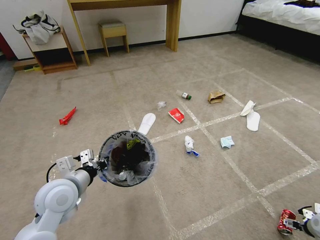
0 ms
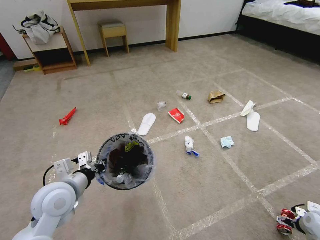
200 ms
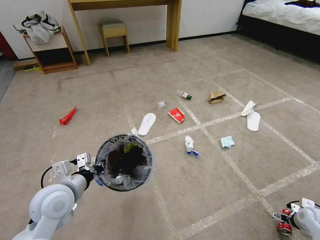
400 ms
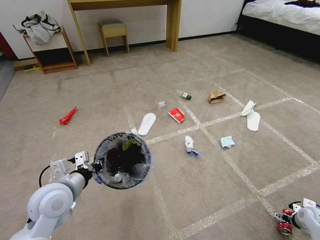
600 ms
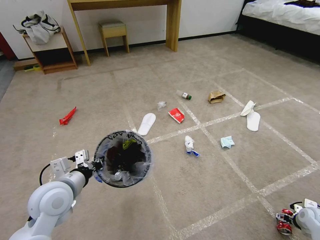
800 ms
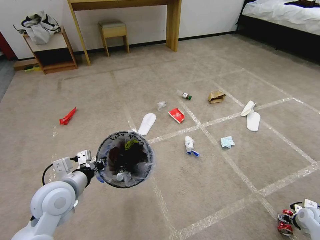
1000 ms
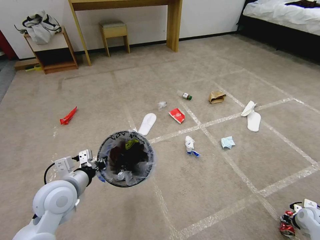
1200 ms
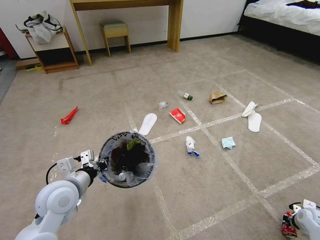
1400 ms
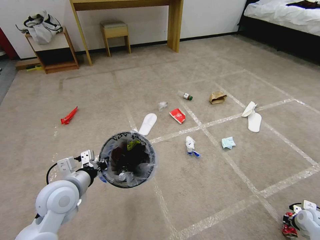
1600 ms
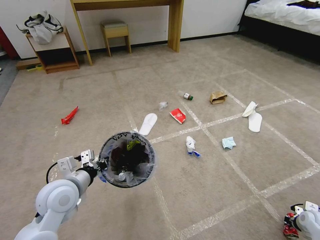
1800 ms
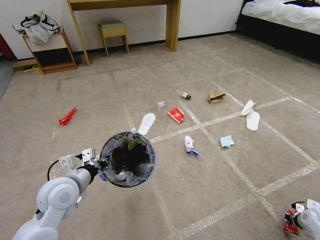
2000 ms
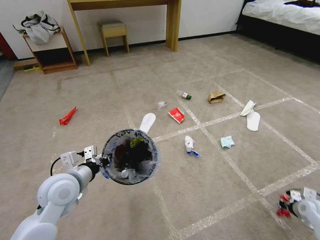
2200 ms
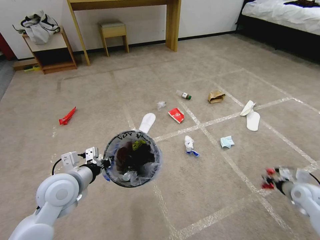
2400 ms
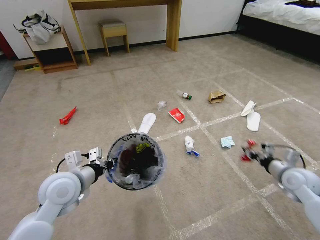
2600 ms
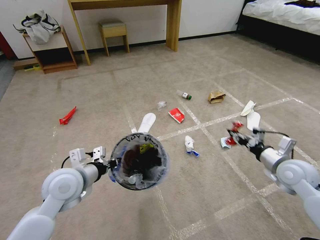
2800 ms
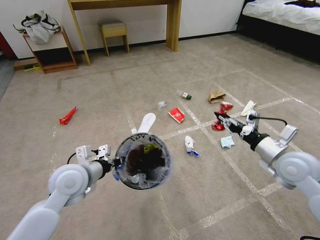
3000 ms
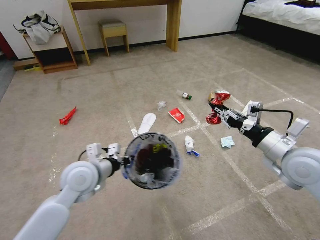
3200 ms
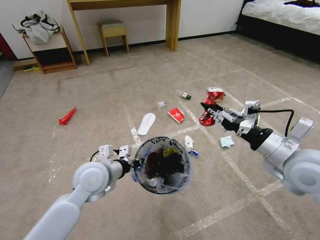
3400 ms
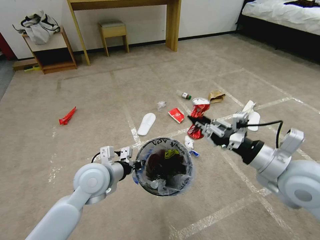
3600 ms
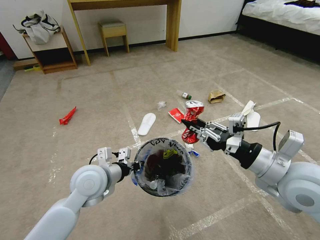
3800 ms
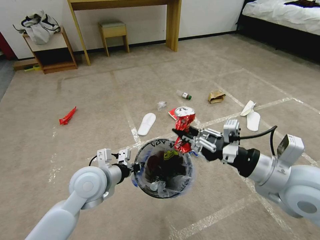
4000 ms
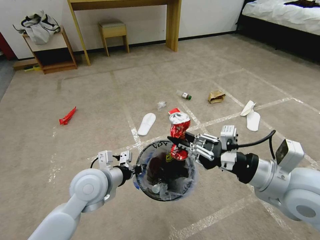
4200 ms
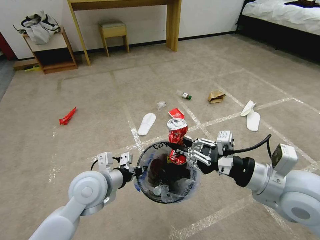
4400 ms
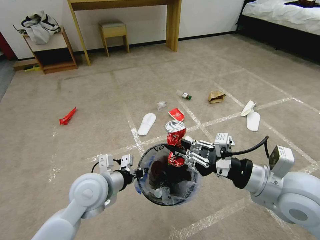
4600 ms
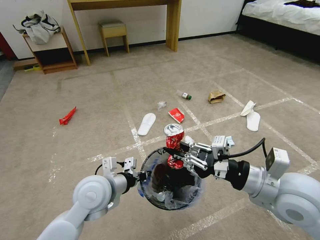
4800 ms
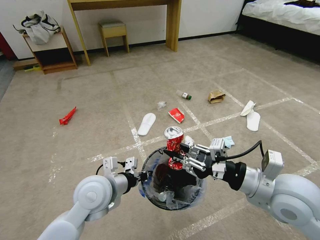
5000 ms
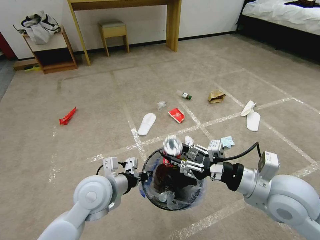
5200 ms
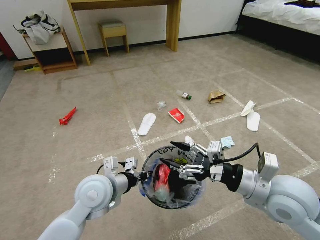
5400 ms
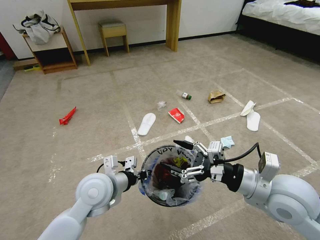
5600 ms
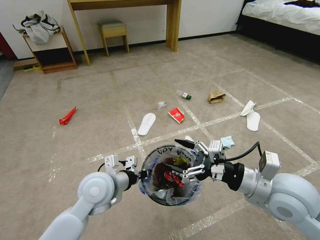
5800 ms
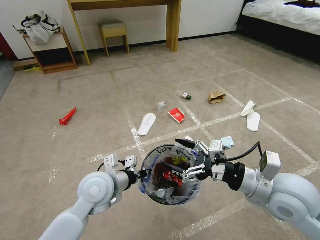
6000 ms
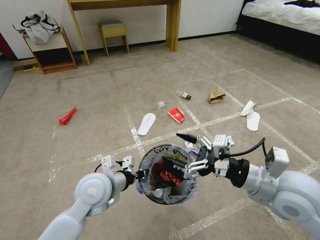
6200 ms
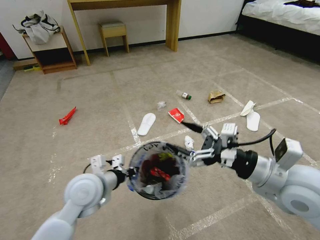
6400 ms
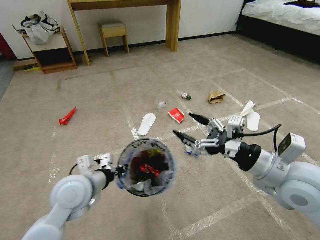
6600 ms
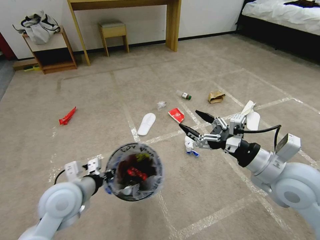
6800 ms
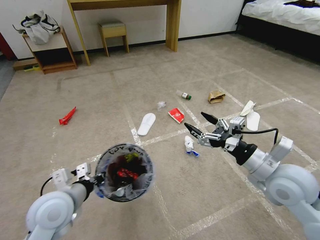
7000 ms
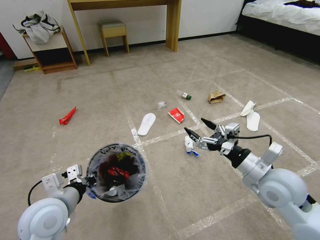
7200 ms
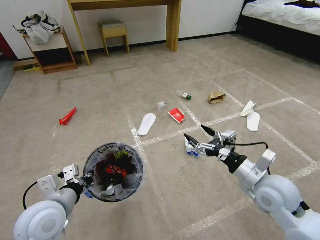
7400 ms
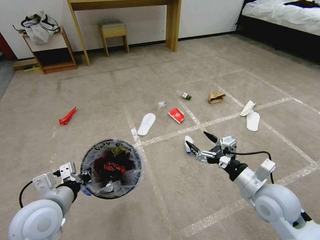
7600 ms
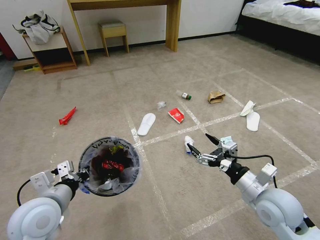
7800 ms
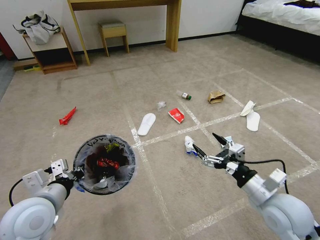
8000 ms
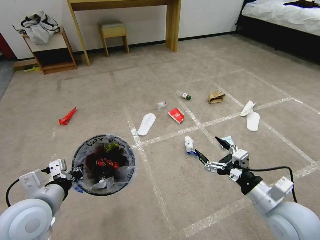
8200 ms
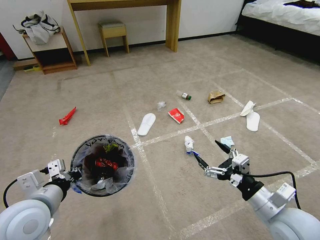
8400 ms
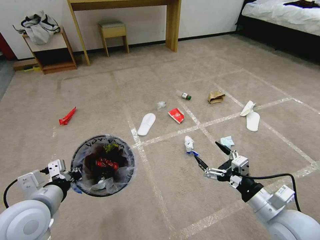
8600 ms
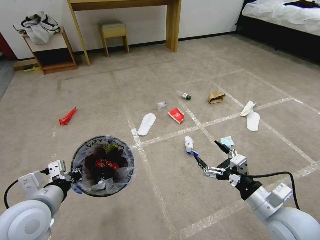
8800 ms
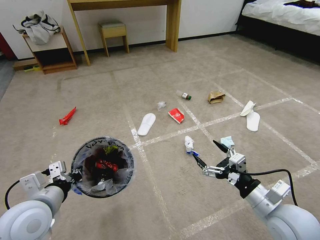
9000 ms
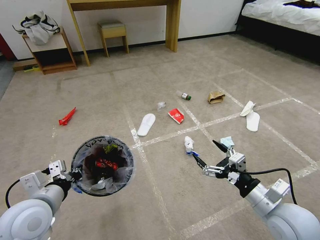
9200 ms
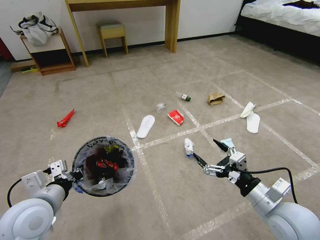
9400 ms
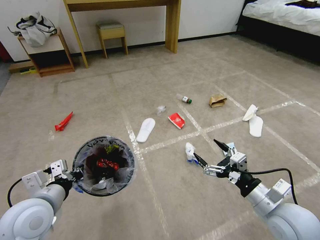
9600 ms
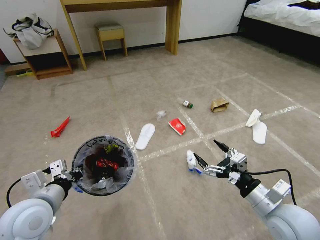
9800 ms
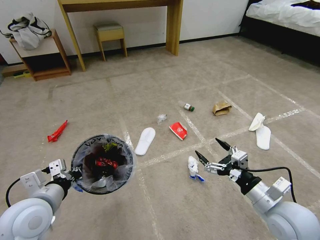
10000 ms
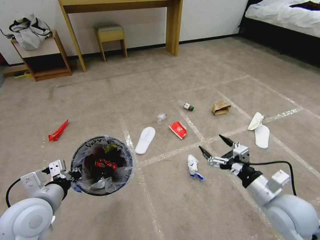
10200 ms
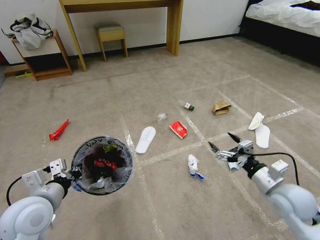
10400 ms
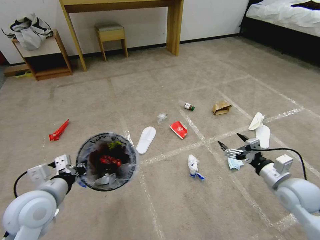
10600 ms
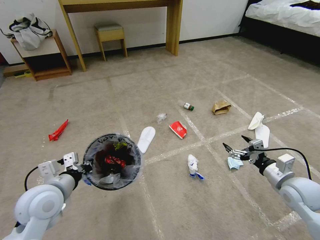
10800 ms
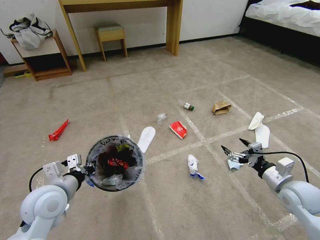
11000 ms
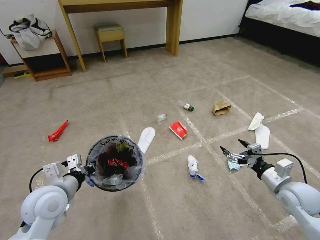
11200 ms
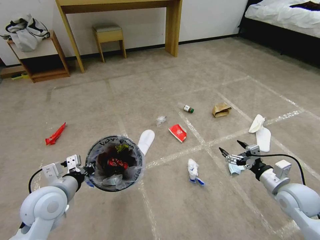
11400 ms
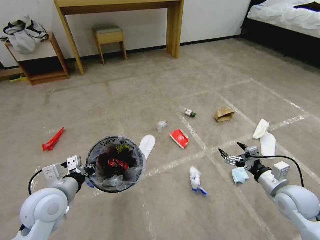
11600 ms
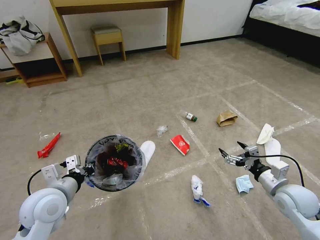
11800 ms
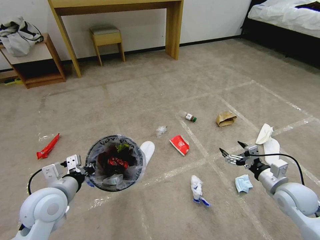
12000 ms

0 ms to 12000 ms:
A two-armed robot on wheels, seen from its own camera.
Task of the whole recording: Pick up the trash bin and place the garbage on the floor into it.
0 ms to 1600 ms: The right gripper goes some 5 cm downward, and closes.
1600 ms to 3000 ms: The right gripper is displaced upward and to the left by about 35 cm.
3000 ms to 4400 ms: The right gripper heads backward, to the left and upward, covering some 15 cm. The left gripper goes about 5 cm to the right.
4400 ms to 6000 ms: The right gripper opens its fingers.
6000 ms to 7600 ms: The right gripper shifts approximately 10 cm downward. Meanwhile the left gripper heads to the left and backward, covering some 15 cm.
7600 ms to 9000 ms: The right gripper travels backward by roughly 5 cm.
9000 ms to 10400 ms: The right gripper goes about 10 cm forward and to the right.
10400 ms to 12000 ms: The right gripper ends up some 5 cm from where it was.

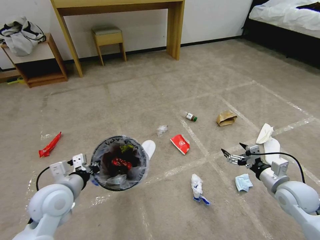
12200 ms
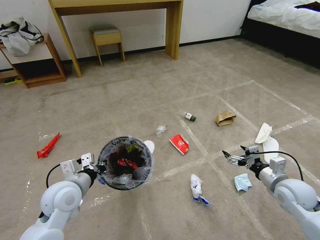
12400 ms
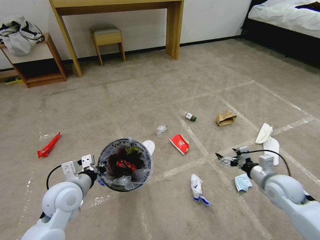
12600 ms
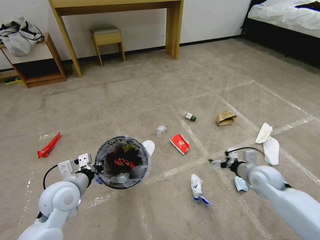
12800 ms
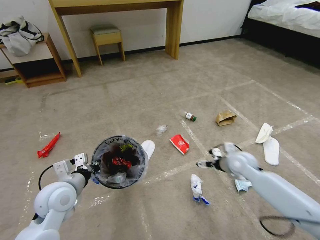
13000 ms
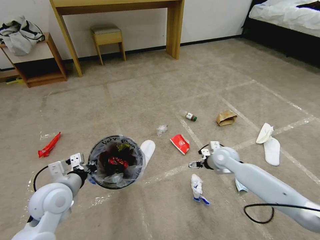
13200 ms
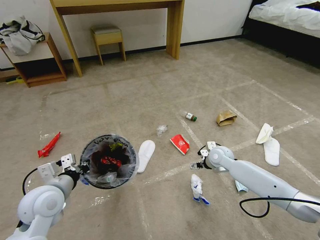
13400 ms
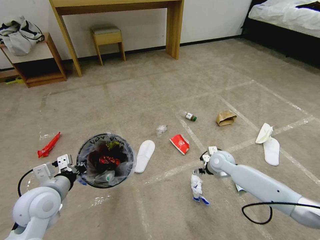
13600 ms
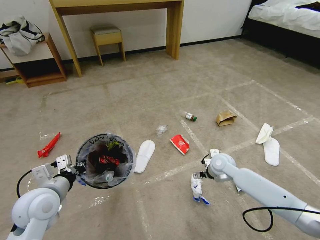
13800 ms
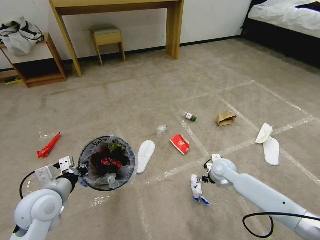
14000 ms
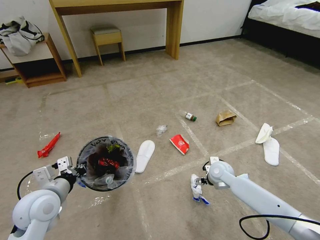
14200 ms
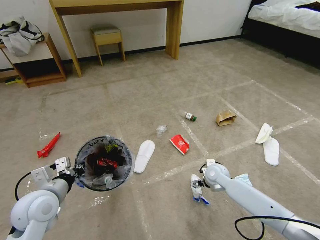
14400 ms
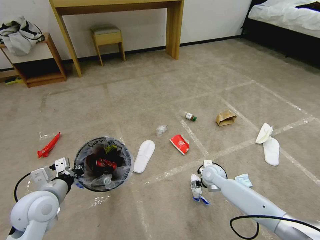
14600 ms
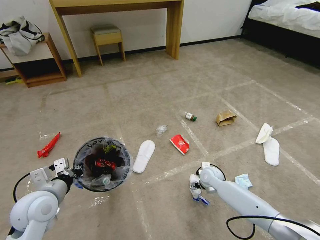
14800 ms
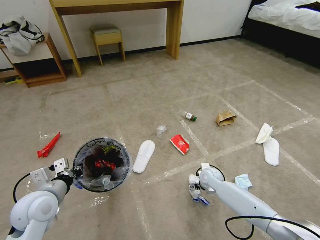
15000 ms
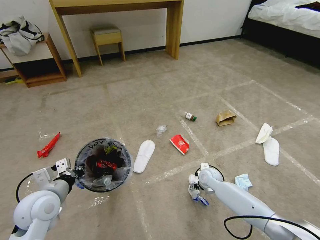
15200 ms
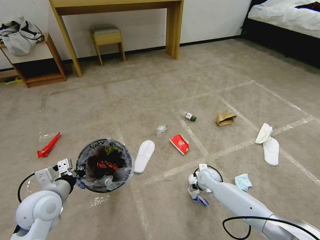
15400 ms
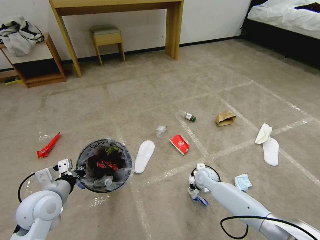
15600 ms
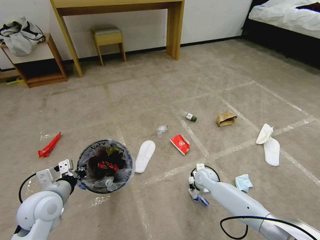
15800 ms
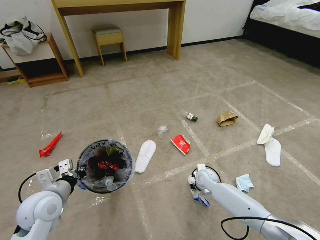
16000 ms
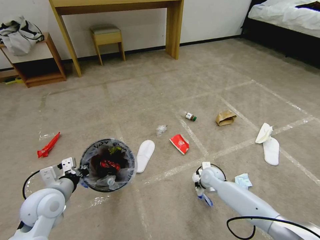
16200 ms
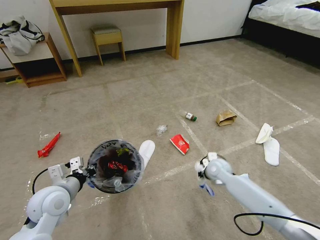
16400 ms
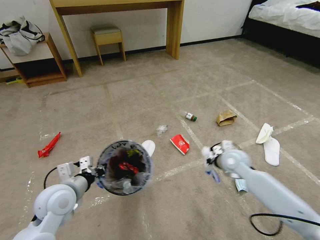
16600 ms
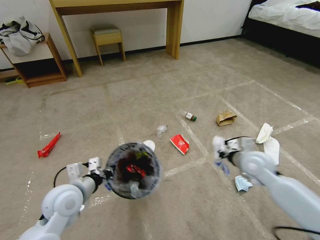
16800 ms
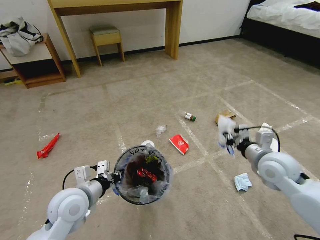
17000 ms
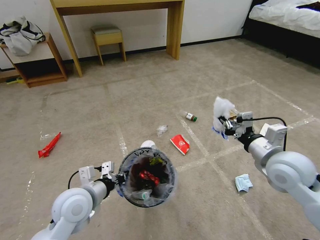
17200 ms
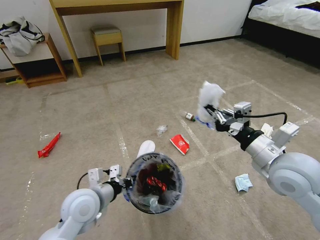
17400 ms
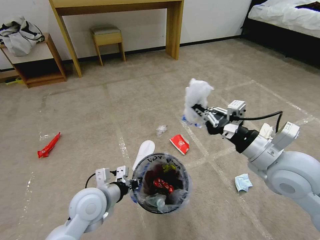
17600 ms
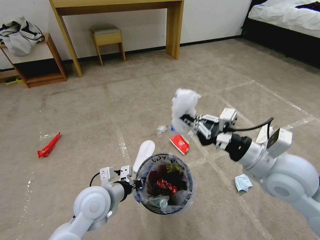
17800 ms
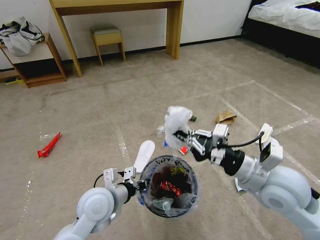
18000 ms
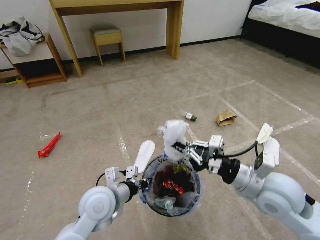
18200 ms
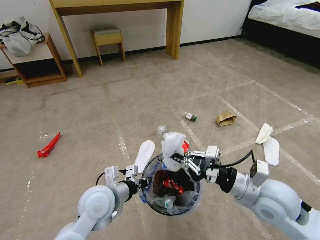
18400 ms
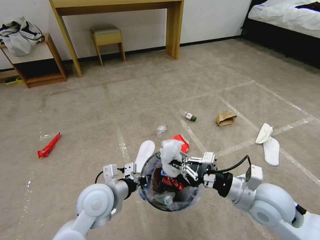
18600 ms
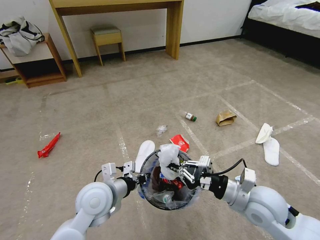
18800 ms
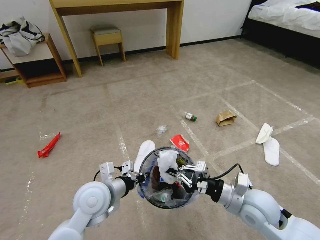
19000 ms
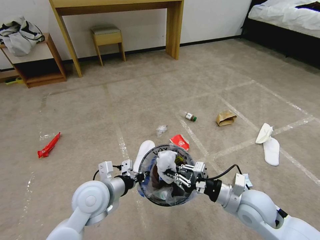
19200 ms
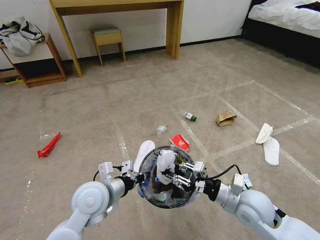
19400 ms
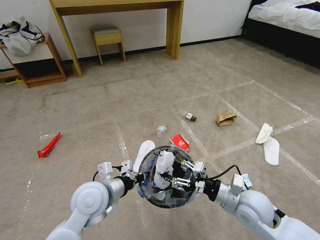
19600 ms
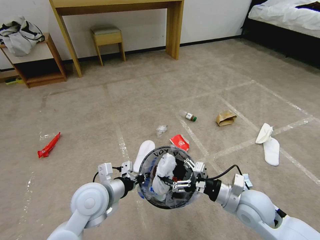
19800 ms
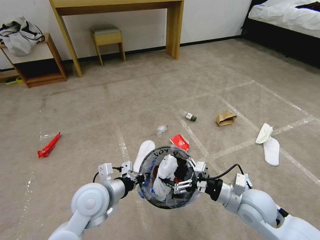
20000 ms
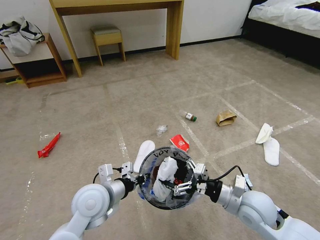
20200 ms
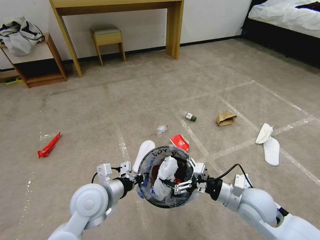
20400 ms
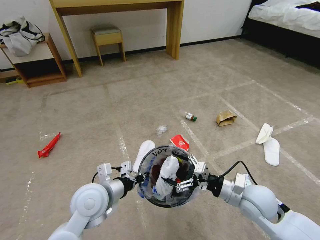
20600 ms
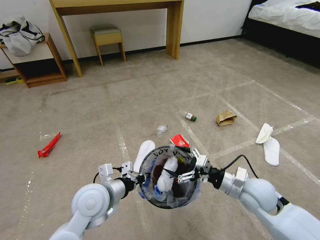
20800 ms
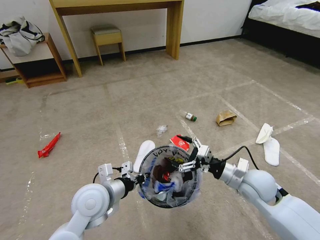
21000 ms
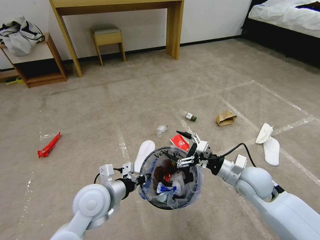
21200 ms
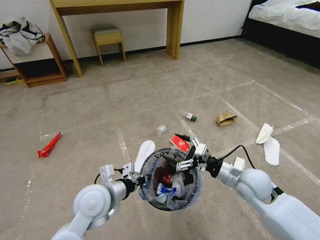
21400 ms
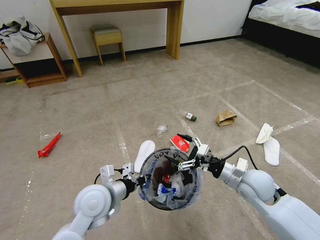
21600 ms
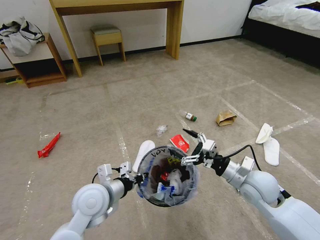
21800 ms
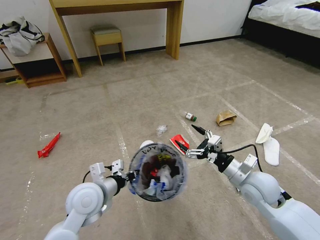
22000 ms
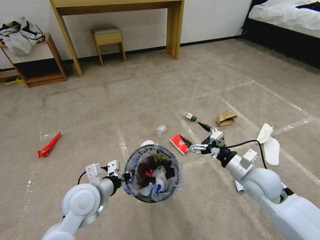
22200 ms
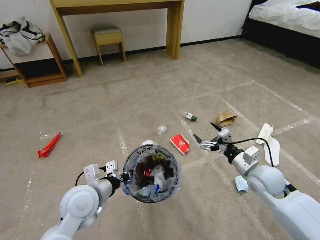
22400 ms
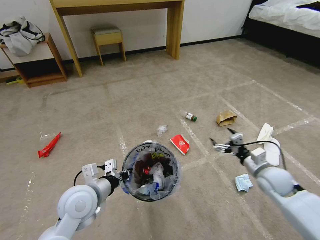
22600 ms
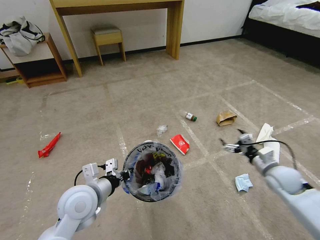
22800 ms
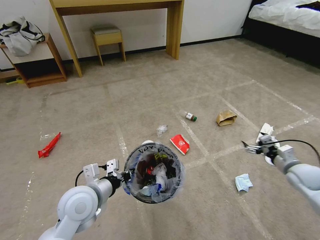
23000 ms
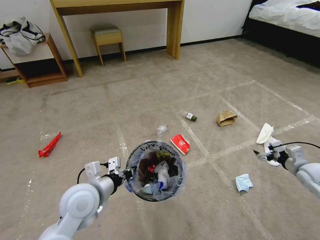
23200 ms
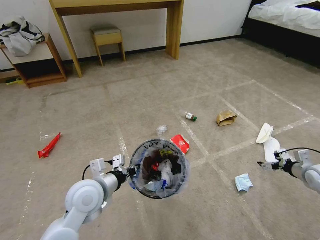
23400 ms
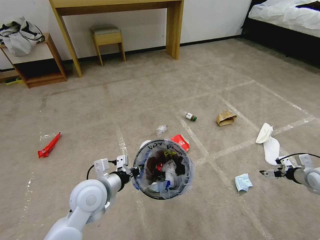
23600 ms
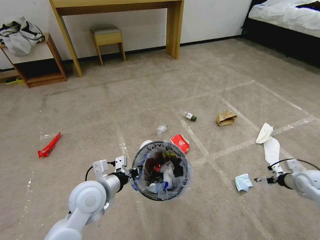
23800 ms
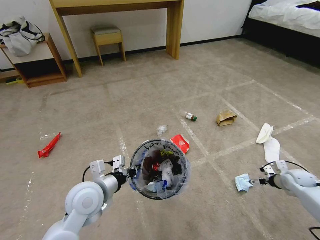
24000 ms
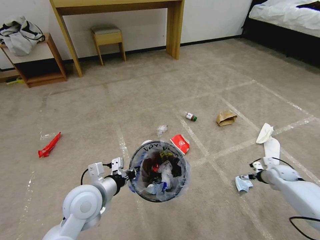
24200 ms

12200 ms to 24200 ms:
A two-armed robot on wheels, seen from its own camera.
Task of the whole recording: Pick up the trash bin and place the garbage on the floor into it.
12200 ms to 13800 ms: The right gripper moves to the left and forward, some 20 cm.
13800 ms to 15200 ms: The right gripper is displaced downward by about 10 cm.
15200 ms to 16600 ms: The right gripper shifts approximately 15 cm upward, and closes its fingers.
16600 ms to 18200 ms: The left gripper travels to the right by roughly 10 cm. The right gripper heads backward and upward, covering about 20 cm.
18200 ms to 19800 ms: The right gripper heads downward, covering about 10 cm, and opens up.
19800 ms to 21200 ms: The right gripper is displaced forward by roughly 5 cm.
21200 ms to 22600 ms: The right gripper goes roughly 10 cm to the right.
22600 ms to 24200 ms: The right gripper shifts about 20 cm to the right, downward and forward.
